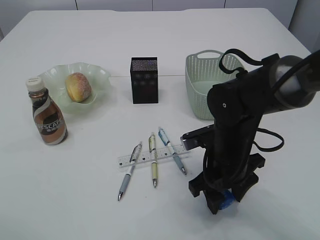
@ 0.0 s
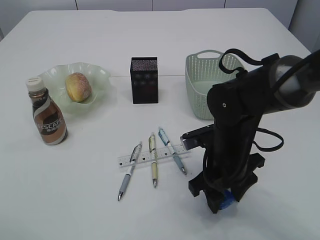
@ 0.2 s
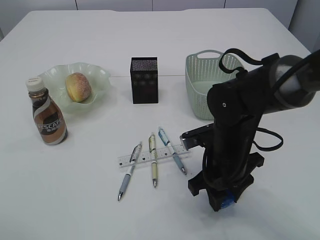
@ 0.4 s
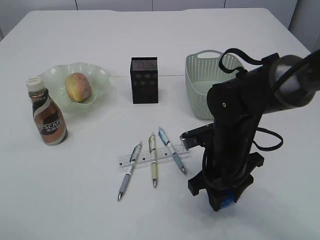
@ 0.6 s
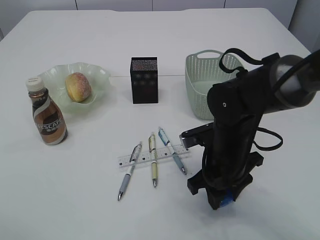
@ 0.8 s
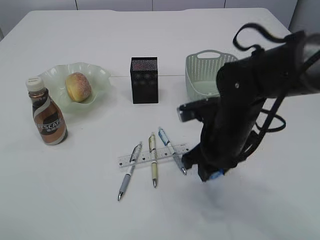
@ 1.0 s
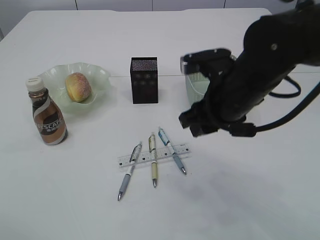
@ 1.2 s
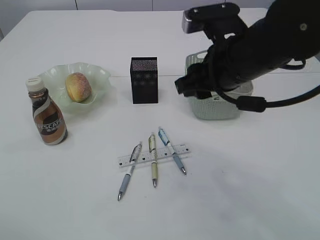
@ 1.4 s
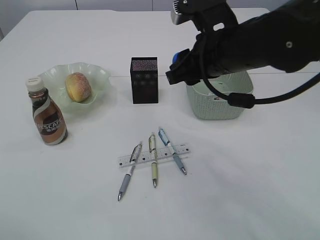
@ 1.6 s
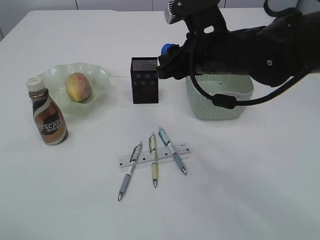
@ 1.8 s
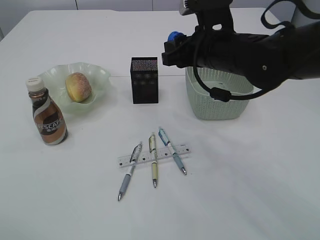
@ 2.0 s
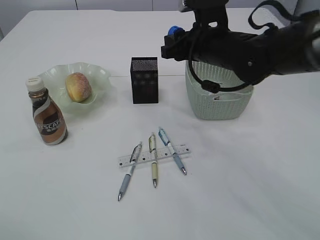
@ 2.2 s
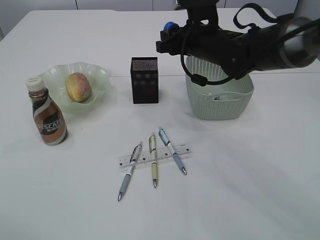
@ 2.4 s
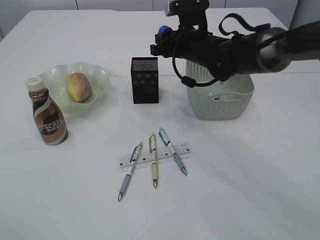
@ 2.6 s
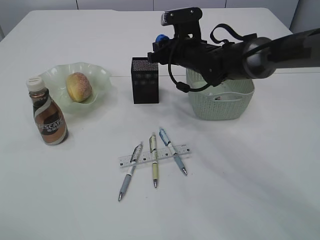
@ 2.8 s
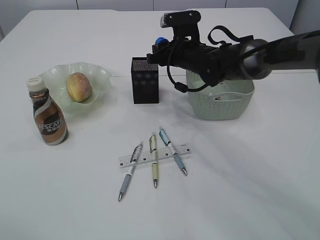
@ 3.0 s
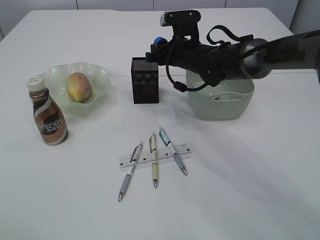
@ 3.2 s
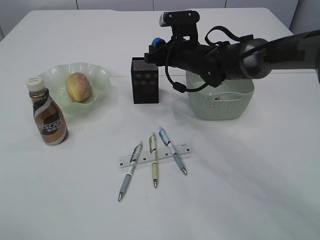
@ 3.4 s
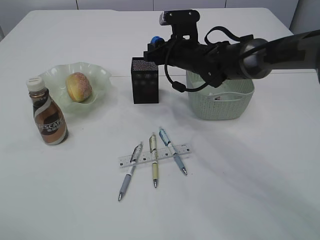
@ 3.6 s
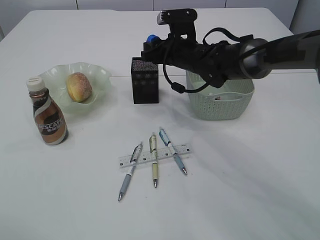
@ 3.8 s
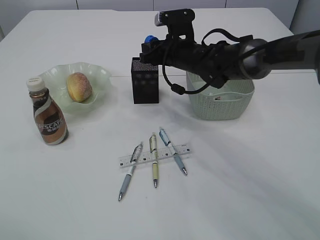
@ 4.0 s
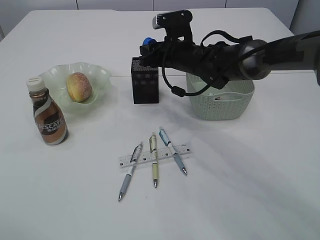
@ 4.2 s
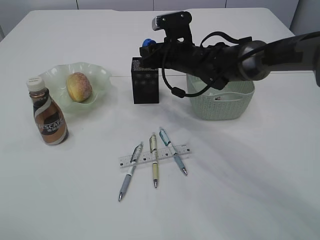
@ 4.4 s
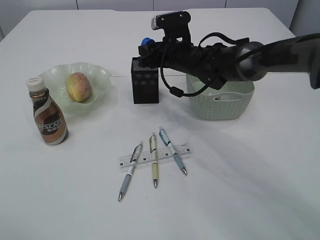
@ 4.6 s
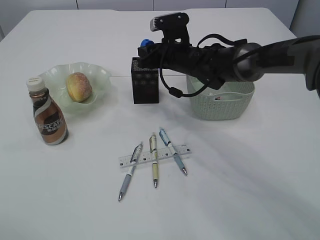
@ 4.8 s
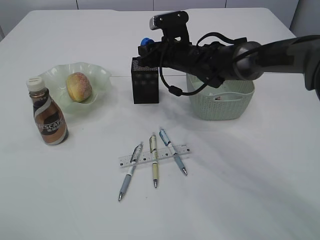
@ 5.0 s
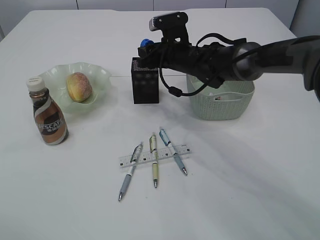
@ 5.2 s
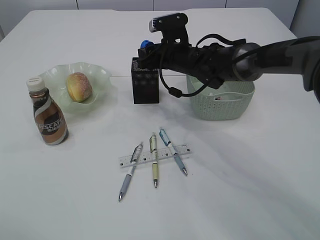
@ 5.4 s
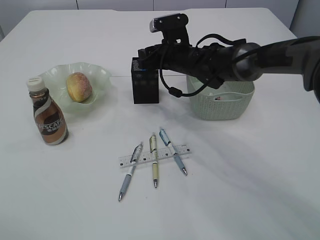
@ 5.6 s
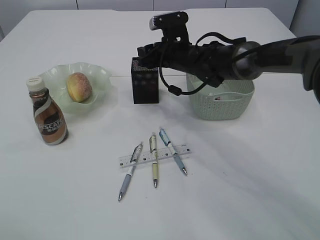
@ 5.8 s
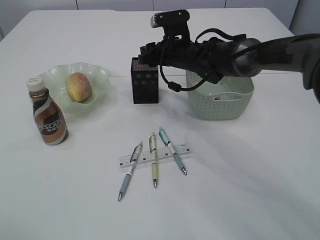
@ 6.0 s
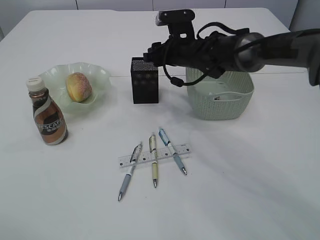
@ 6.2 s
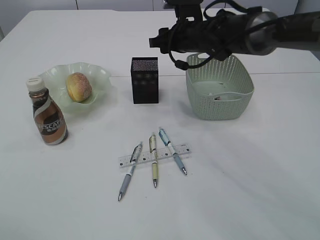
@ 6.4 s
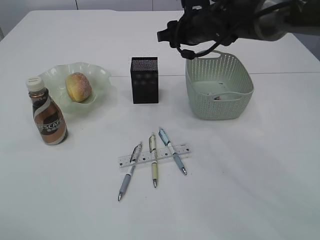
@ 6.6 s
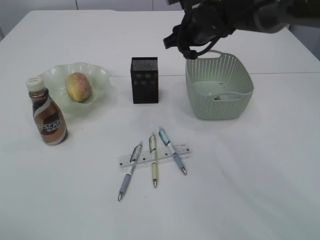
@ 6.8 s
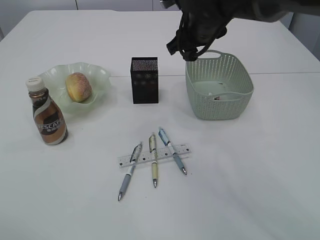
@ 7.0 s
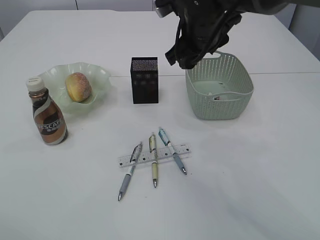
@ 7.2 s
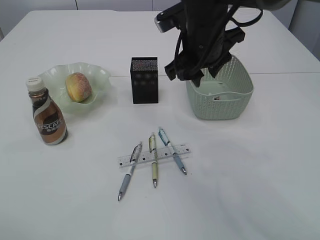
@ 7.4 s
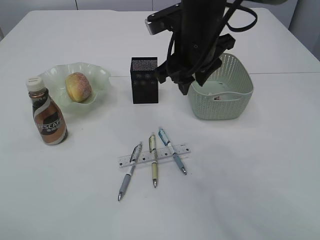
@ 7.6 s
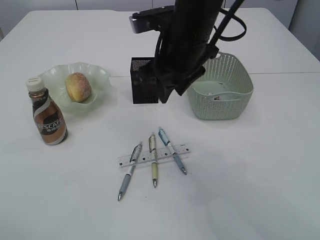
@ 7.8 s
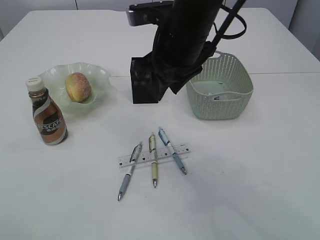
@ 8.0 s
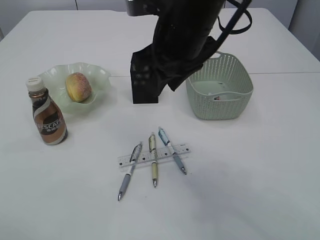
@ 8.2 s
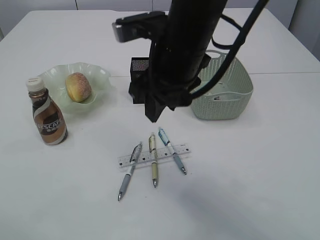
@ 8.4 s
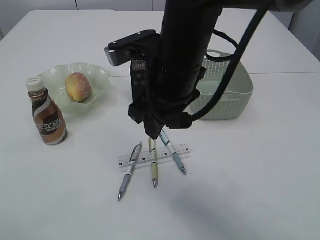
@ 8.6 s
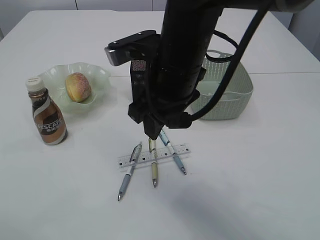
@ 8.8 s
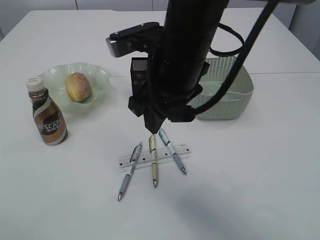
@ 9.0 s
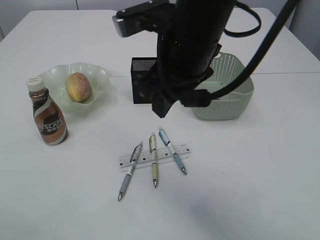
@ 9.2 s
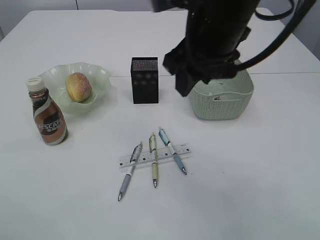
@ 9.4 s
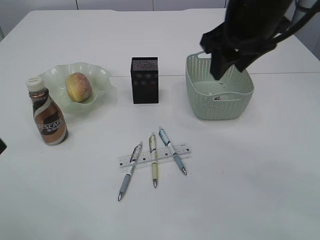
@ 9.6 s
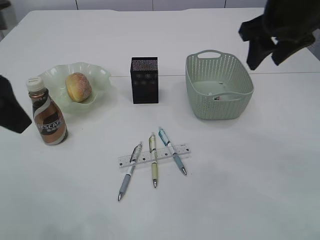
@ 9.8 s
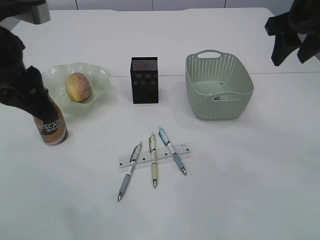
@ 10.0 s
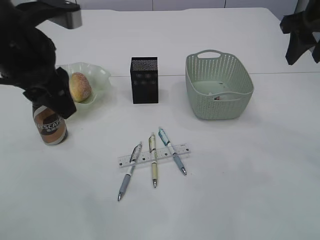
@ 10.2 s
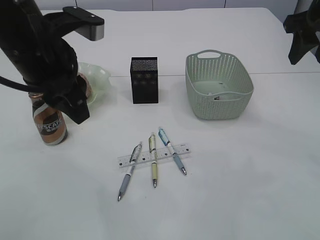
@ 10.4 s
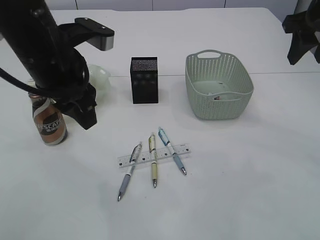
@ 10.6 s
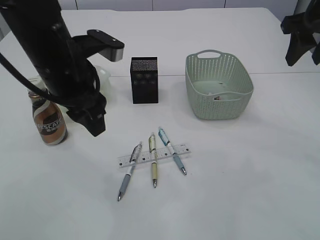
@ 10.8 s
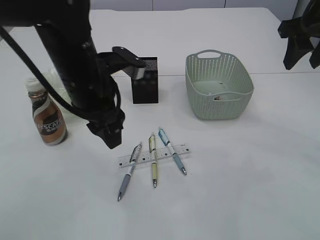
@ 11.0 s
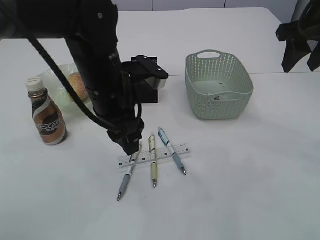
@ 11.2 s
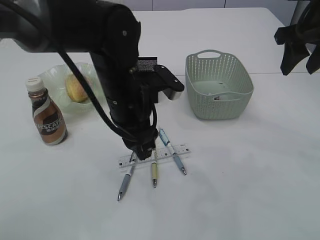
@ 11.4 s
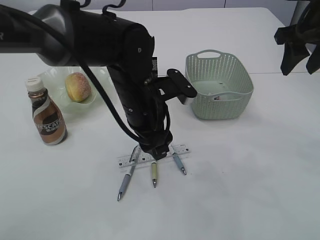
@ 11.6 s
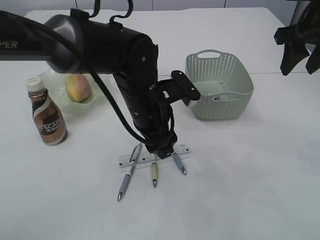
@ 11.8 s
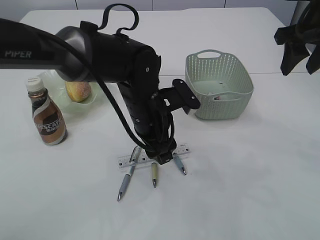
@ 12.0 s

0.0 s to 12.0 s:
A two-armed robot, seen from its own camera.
Step, 1.2 to 6.4 s: Place the blue pencil sharpener into the pen holder.
0.0 to 1.6 s: The right gripper heads upward, covering roughly 15 cm.
1.6 to 3.0 s: The right gripper shifts approximately 20 cm forward and downward.
3.0 to 6.0 s: The grippers stay close to where they were, moving slightly.
6.0 to 7.6 s: The right gripper is displaced backward and upward by some 15 cm.
7.6 to 9.0 s: The right gripper heads backward, covering roughly 5 cm.
9.0 to 10.4 s: The right gripper shifts approximately 25 cm to the right, while the left gripper travels to the right and forward by approximately 20 cm.
10.4 to 12.0 s: The left gripper shifts approximately 20 cm downward and to the right, and opens up.

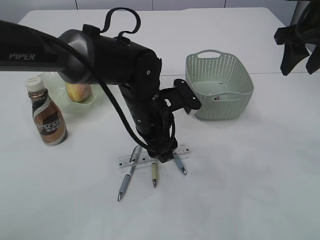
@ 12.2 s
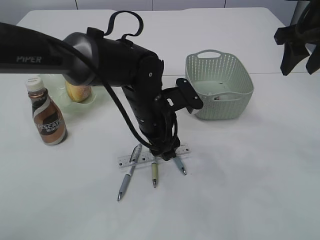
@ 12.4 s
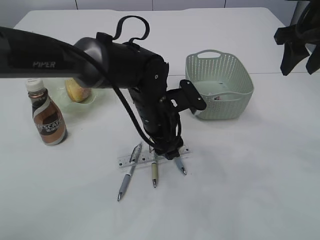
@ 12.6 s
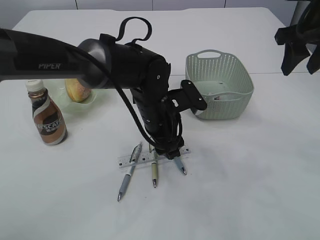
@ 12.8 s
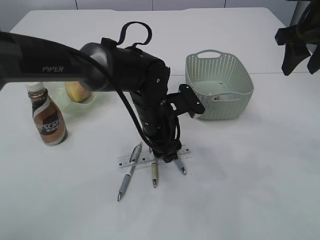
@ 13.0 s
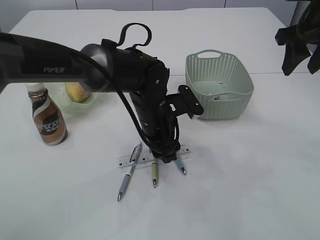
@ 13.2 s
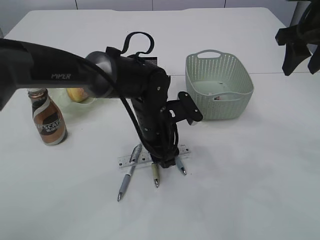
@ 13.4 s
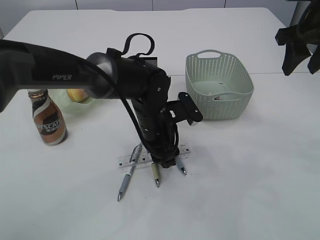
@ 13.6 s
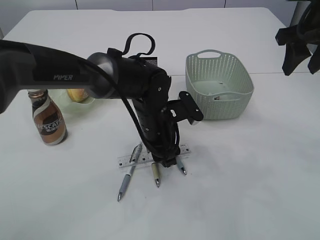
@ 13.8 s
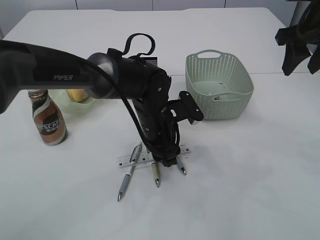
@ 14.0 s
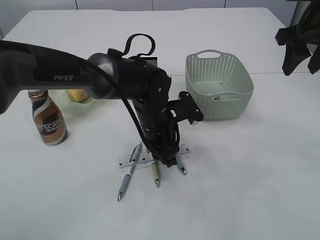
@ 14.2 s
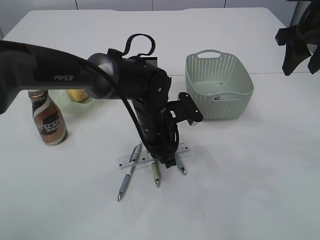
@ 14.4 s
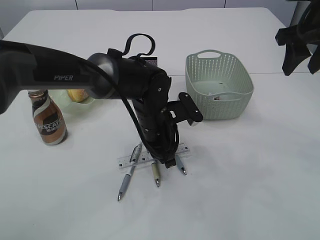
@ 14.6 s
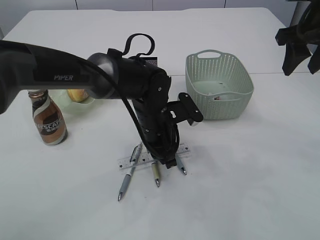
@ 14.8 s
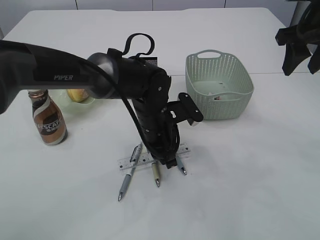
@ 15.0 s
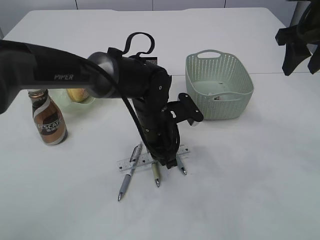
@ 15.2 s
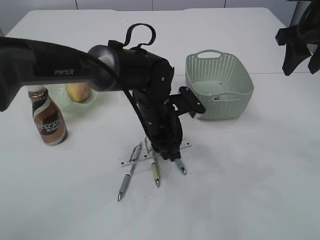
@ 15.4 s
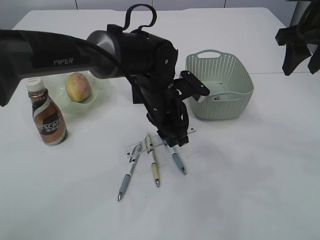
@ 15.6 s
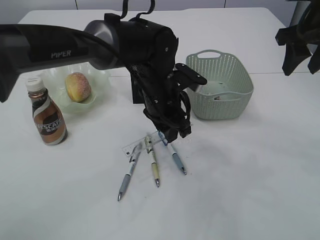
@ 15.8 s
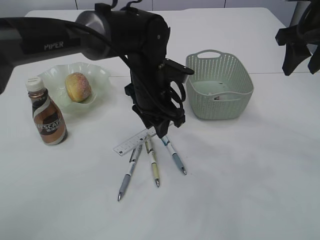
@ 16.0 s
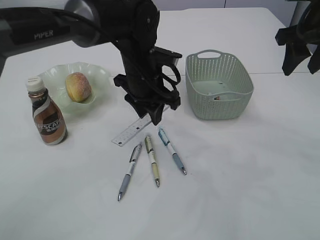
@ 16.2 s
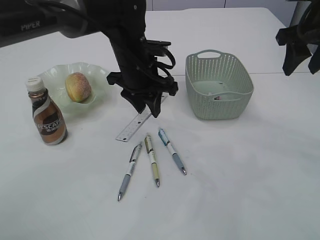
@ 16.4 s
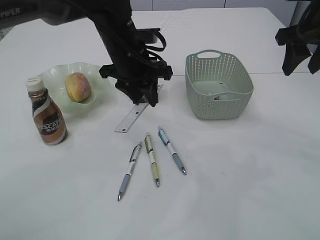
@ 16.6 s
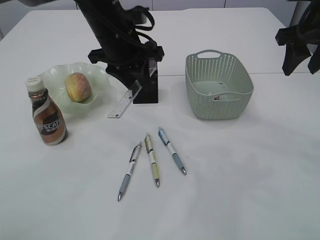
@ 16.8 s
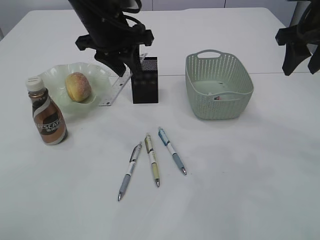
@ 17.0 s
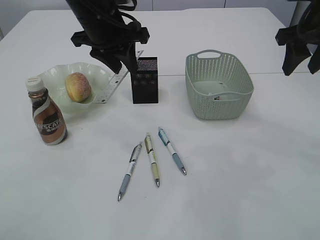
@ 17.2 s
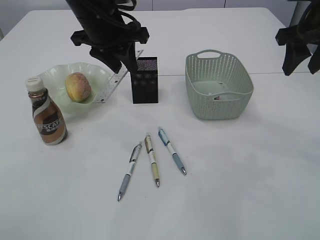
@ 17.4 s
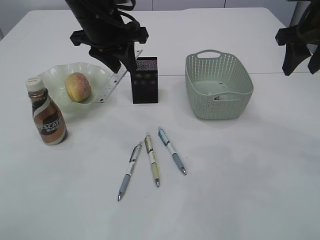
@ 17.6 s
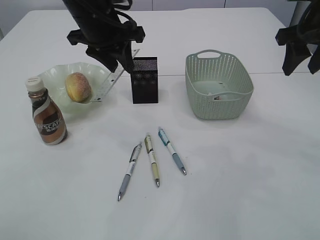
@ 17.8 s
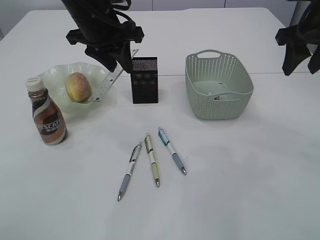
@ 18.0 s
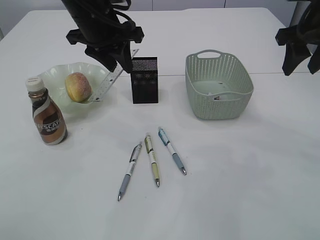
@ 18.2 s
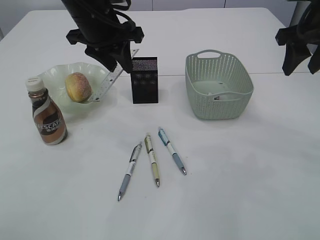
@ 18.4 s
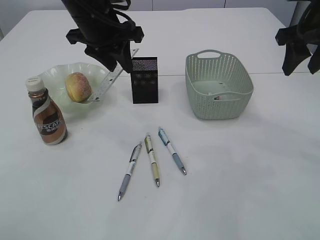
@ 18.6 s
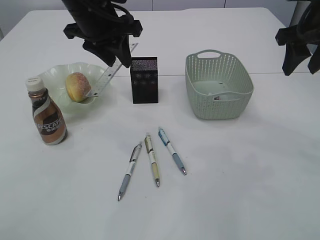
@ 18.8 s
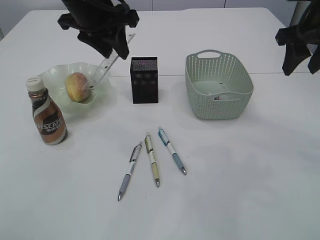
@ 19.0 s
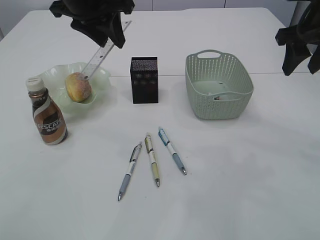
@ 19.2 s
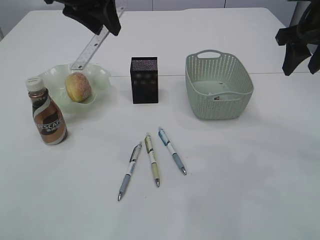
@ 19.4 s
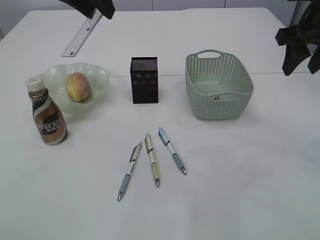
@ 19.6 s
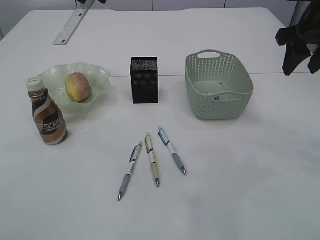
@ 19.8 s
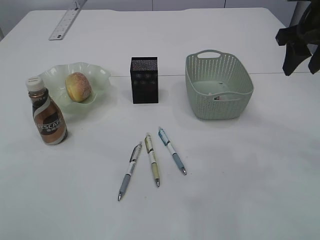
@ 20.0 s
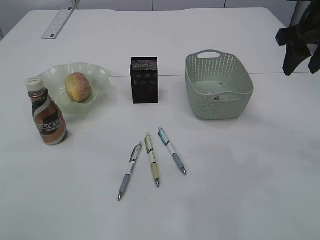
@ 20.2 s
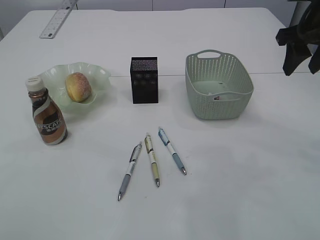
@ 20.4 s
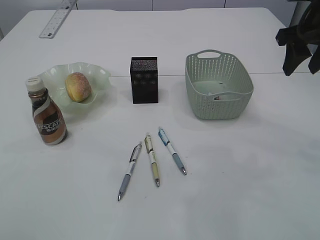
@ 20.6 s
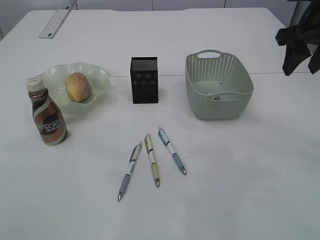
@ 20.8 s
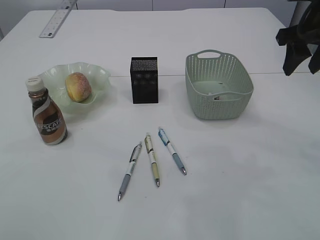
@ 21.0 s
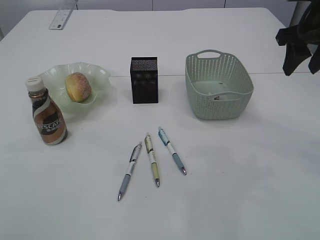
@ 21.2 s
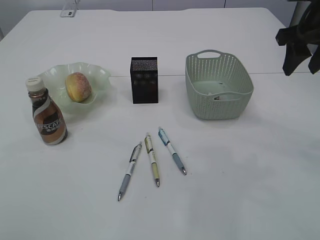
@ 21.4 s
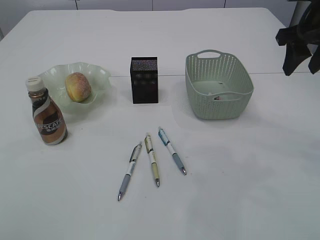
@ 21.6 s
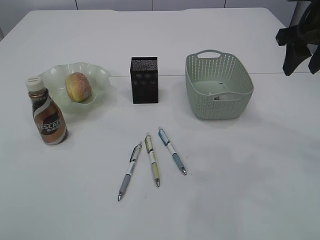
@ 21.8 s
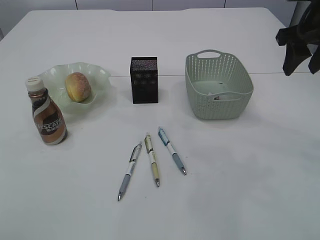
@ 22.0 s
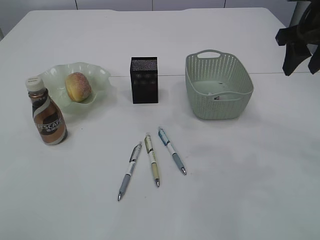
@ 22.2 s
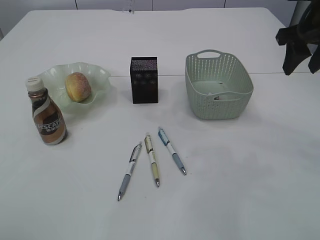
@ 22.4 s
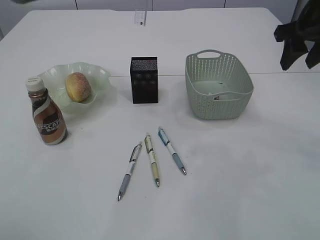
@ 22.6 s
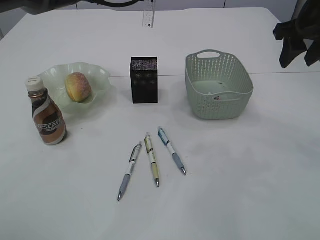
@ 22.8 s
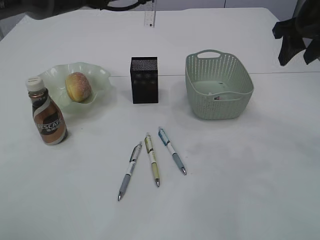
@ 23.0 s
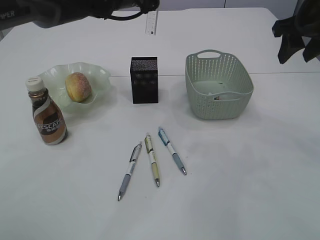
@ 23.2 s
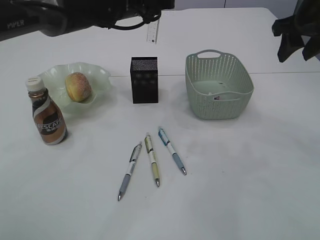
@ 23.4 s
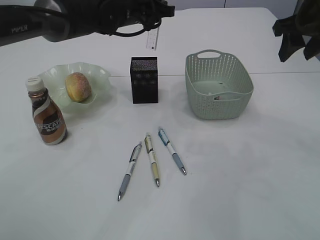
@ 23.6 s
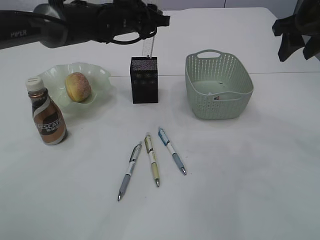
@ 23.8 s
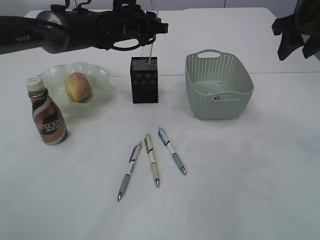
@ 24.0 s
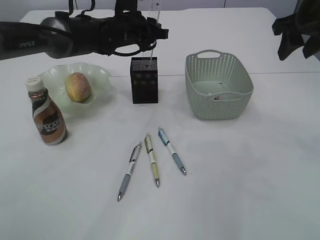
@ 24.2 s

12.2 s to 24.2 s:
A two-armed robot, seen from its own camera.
Step, 12.2 to 15.8 s: pick up the ruler.
12.2 to 13.8 s: There are only small adjustments of the grippers.
13.8 to 15.2 s: The left gripper closes its fingers.
15.2 to 16.6 s: The left gripper heads upward and forward, covering some 15 cm.
16.6 to 18.2 s: The left gripper shifts approximately 10 cm upward and to the left.
18.2 to 19.8 s: The left gripper travels upward and backward by some 15 cm.
22.6 to 24.2 s: The left gripper goes roughly 10 cm downward.
